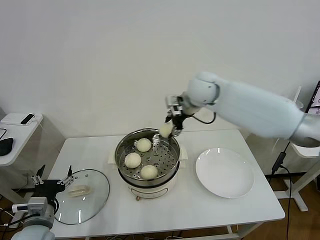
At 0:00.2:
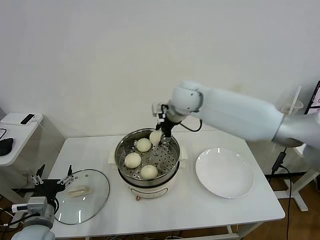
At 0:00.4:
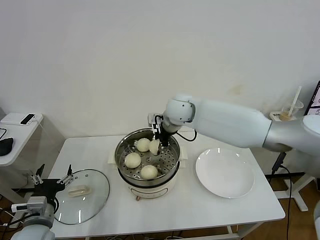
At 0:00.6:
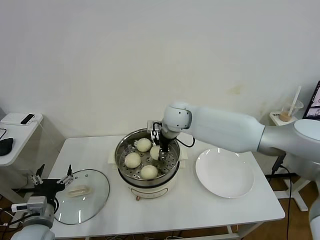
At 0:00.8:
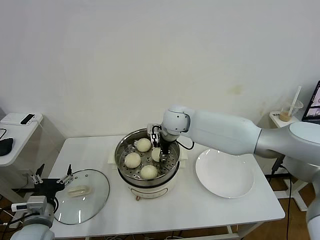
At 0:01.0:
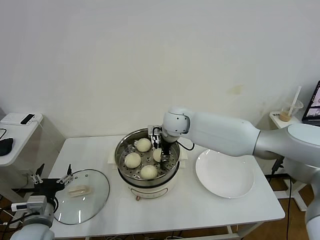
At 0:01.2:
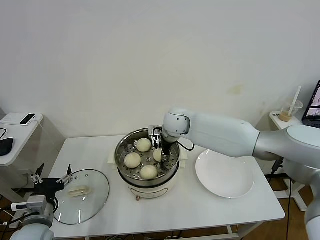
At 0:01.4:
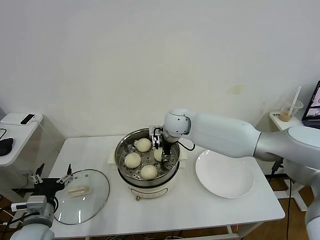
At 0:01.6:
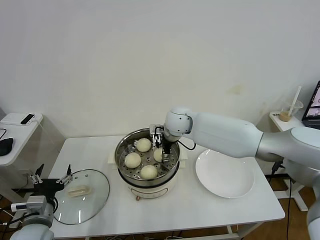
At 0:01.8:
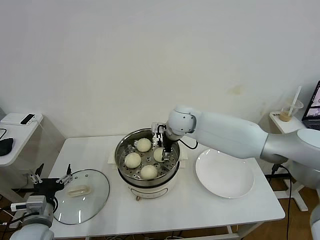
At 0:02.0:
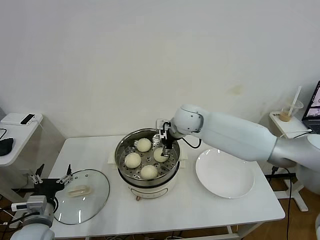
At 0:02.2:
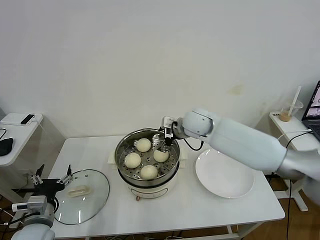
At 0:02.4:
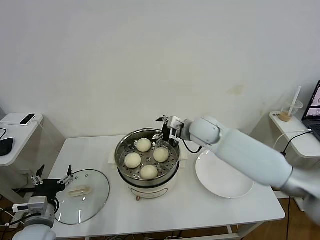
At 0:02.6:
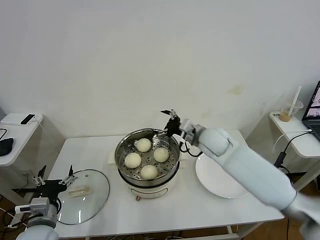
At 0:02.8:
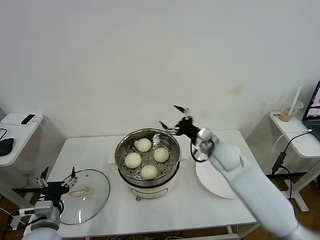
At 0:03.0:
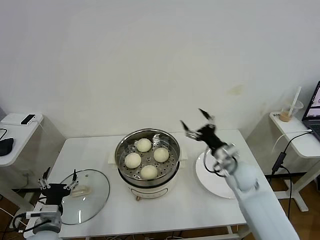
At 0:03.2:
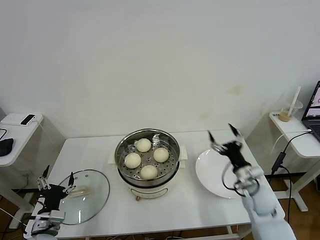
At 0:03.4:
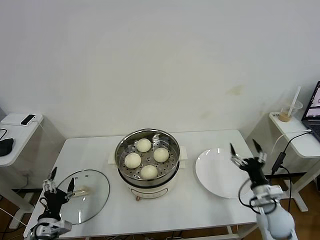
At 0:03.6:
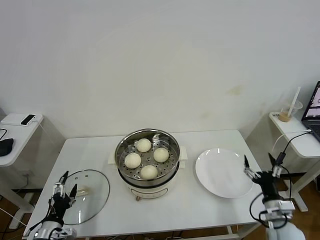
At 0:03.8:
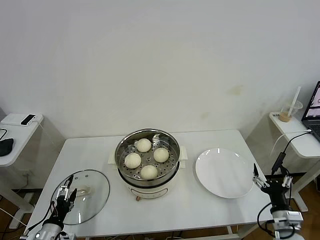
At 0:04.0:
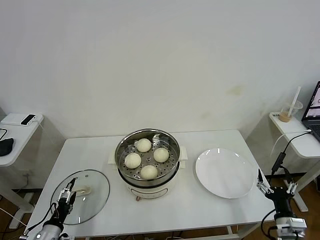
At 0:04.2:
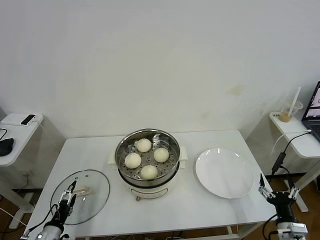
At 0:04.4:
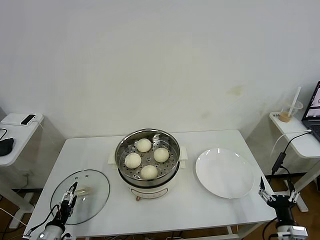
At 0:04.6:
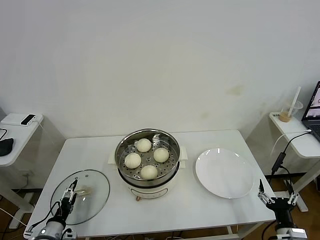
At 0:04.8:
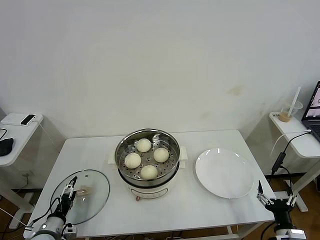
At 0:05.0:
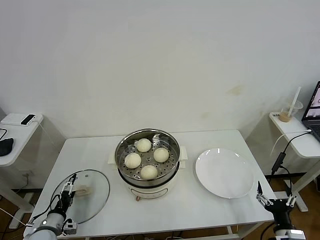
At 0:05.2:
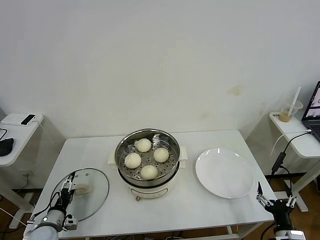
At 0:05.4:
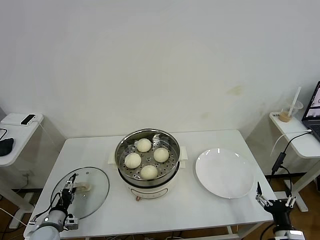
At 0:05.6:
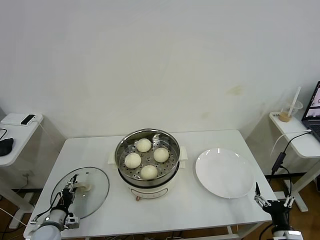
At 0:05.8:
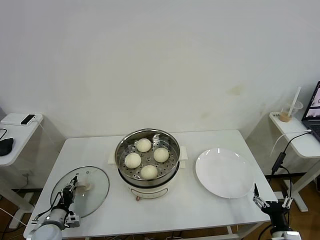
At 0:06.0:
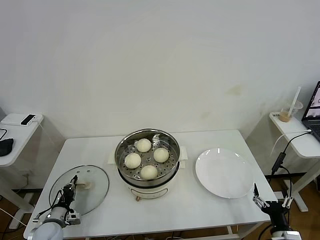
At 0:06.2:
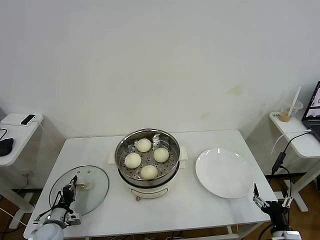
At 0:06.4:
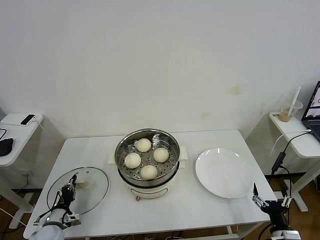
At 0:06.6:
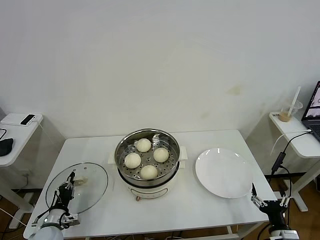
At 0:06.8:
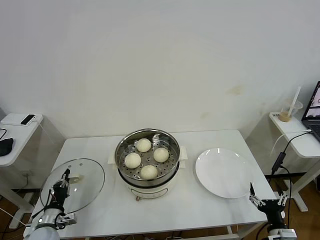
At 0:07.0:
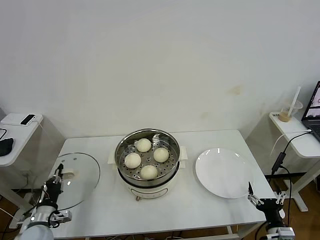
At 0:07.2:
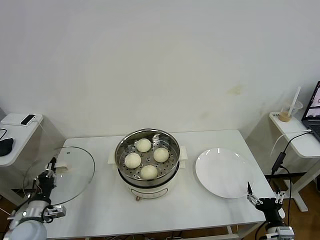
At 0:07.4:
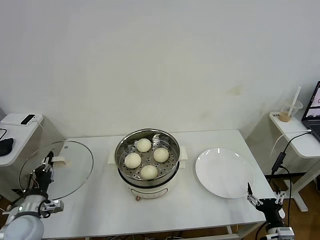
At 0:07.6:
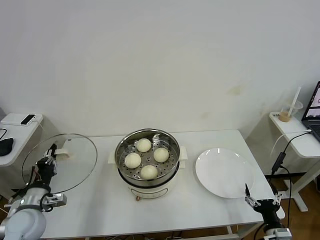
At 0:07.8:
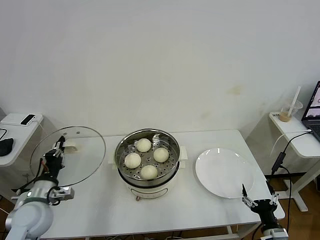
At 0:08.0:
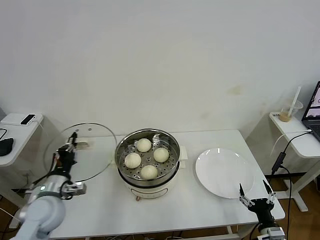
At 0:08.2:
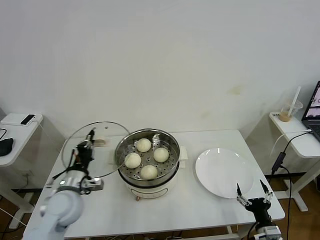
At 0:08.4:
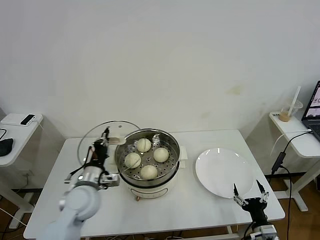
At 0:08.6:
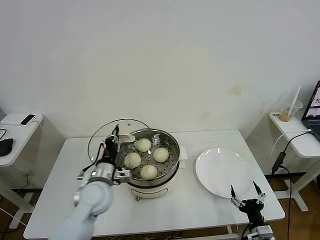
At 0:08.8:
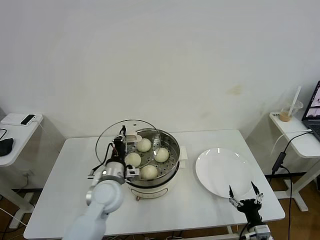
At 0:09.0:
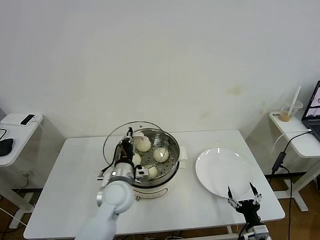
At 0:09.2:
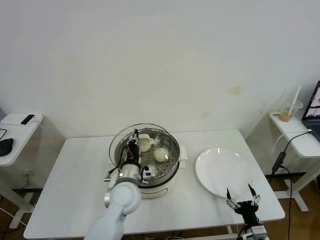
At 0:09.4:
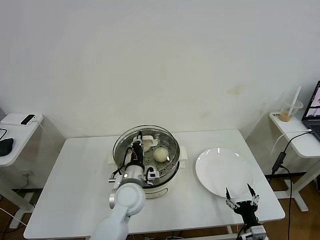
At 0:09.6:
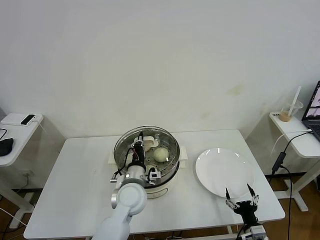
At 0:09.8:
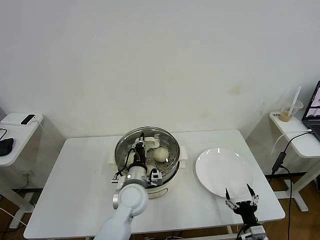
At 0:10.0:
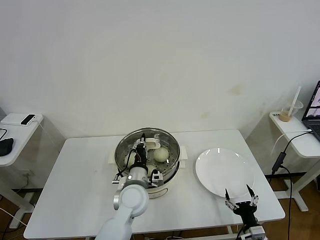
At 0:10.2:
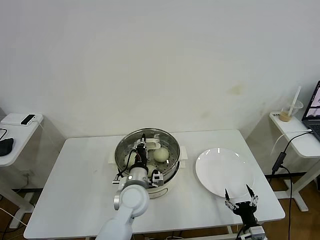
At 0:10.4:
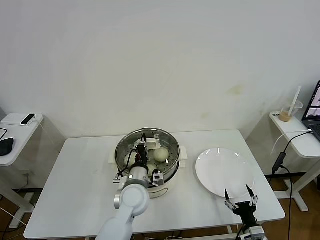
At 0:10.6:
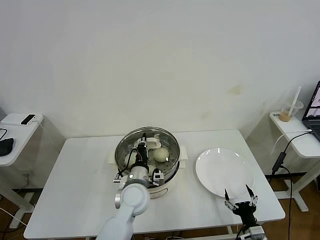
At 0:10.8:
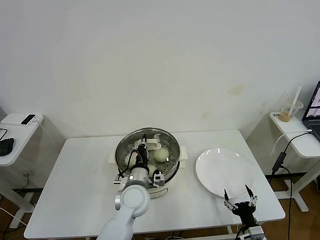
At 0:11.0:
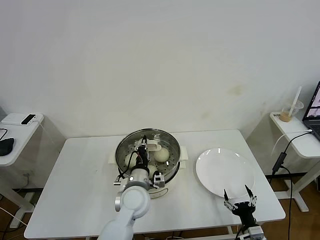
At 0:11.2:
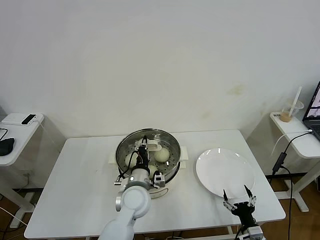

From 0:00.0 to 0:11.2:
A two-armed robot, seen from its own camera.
Task of the whole recording: take steamed baozi put them in steamer then cover it.
Step, from 0:00.0 to 0:02.0: Place the baozi on the steamer with right gripper.
Step, from 0:02.2 to 0:06.0: Grasp the pot lid with left gripper.
From 0:00.0 to 0:01.6: The right gripper moves downward and to the left, about 15 cm, and opens.
From 0:01.6 to 0:03.2: The right gripper shifts roughly 35 cm to the right, backward and downward. Meanwhile the left gripper is displaced downward by roughly 5 cm.
From 0:03.2 to 0:04.8: The right gripper goes about 20 cm backward and to the right; the left gripper shifts approximately 10 cm downward and to the left.
From 0:04.8 to 0:06.4: The left gripper closes its fingers.
From 0:06.4 to 0:08.0: The left gripper heads upward, covering roughly 20 cm.
From 0:08.0 to 0:09.6: The left gripper moves to the right, roughly 25 cm.
From 0:09.6 to 0:11.2: The grippers move only a little.

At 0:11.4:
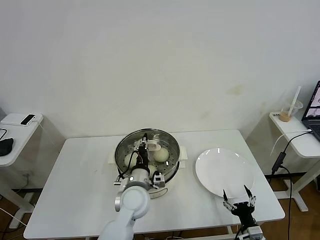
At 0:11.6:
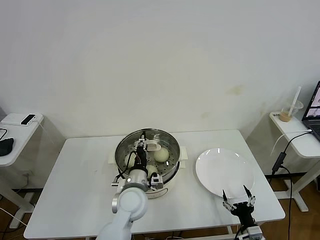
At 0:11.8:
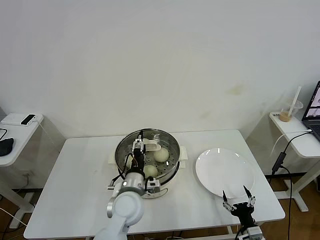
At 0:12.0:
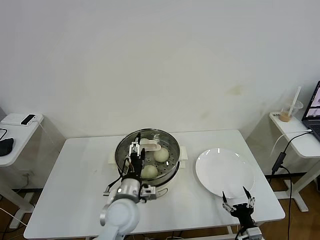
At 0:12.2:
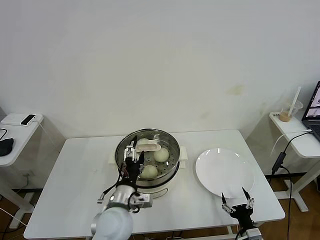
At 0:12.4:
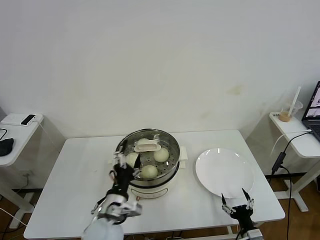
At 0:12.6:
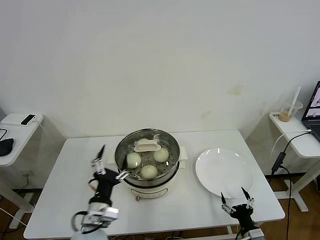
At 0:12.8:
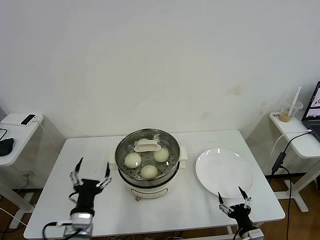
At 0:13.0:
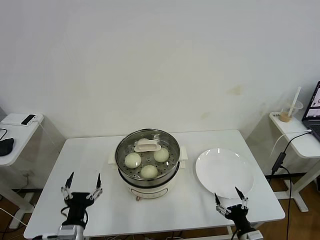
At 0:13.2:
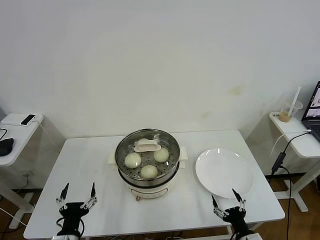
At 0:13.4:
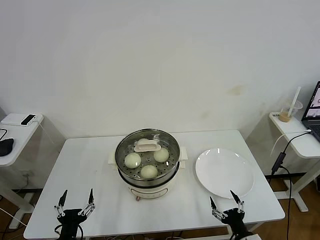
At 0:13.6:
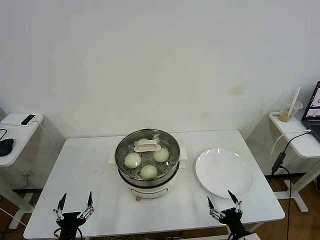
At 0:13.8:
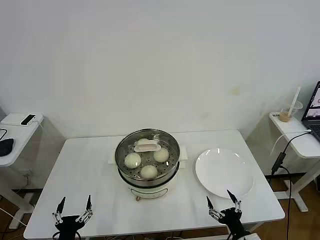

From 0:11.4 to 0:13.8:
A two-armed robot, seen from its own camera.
Task of the whole recording: take steamed baozi put them in steamer then cover it.
From 0:11.4 to 0:12.6: The left gripper is displaced backward and to the left by approximately 15 cm, and opens up.
From 0:12.6 to 0:13.8: The left gripper moves to the left, backward and downward, roughly 20 cm. The right gripper moves approximately 5 cm.
